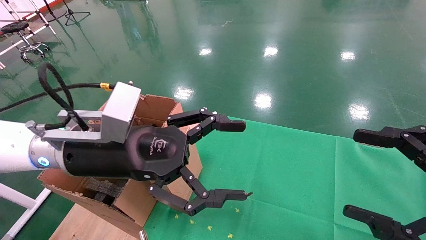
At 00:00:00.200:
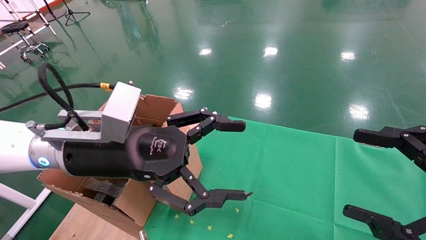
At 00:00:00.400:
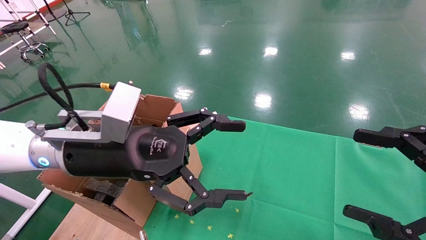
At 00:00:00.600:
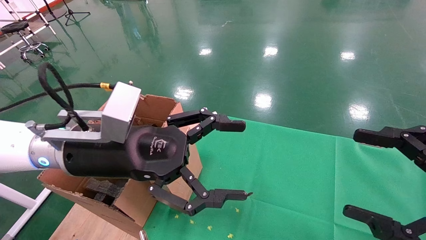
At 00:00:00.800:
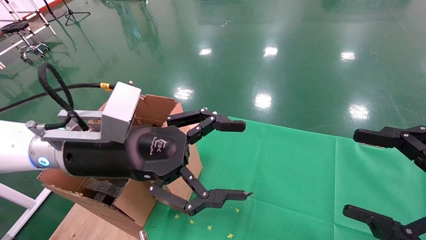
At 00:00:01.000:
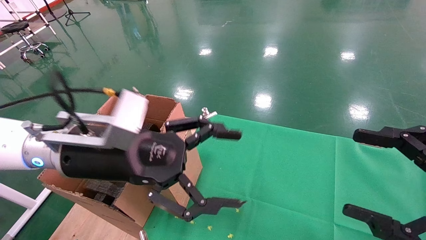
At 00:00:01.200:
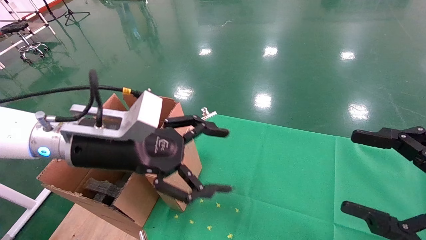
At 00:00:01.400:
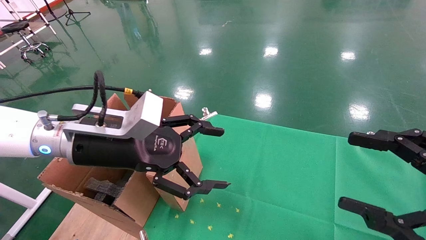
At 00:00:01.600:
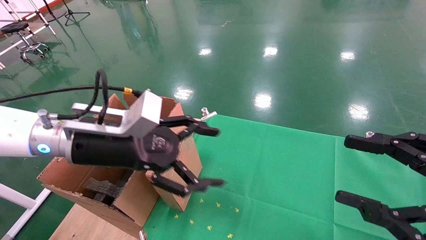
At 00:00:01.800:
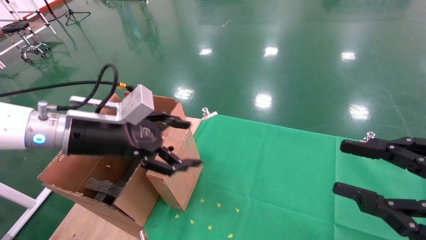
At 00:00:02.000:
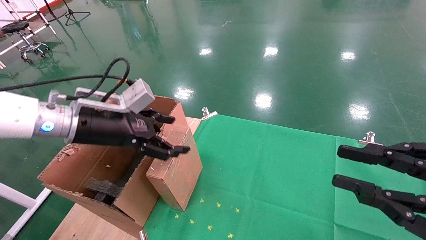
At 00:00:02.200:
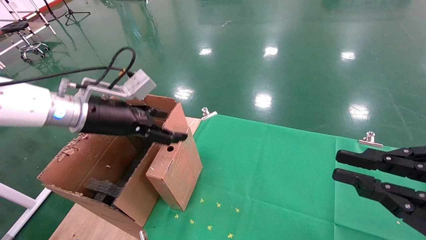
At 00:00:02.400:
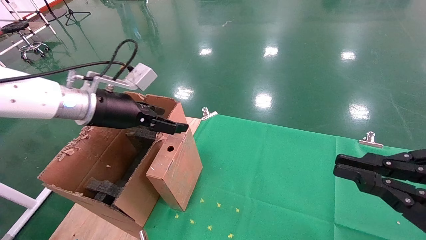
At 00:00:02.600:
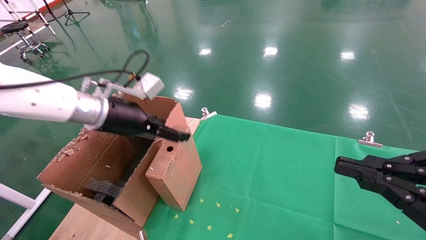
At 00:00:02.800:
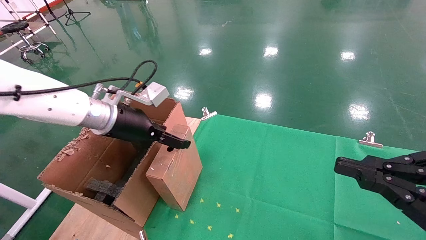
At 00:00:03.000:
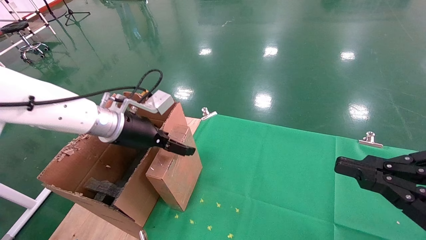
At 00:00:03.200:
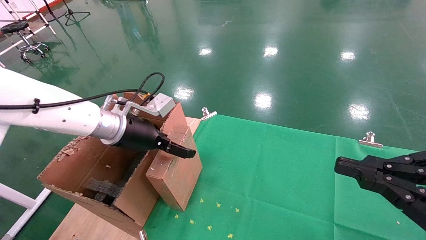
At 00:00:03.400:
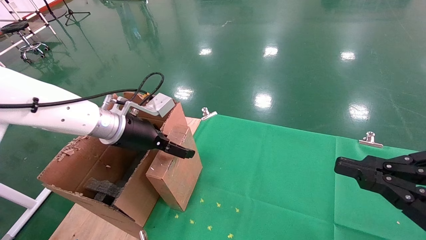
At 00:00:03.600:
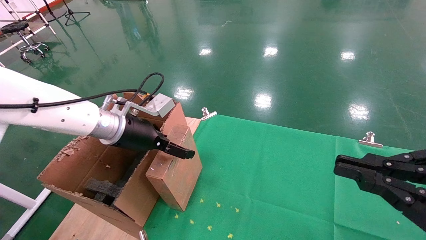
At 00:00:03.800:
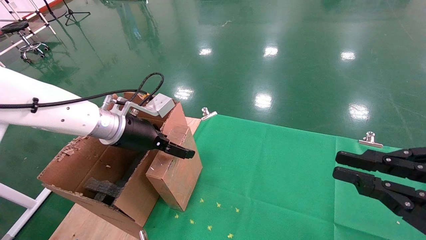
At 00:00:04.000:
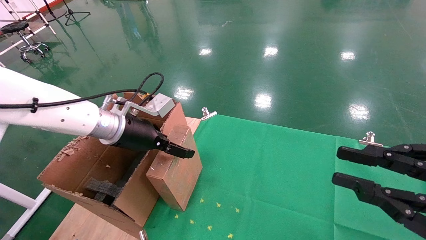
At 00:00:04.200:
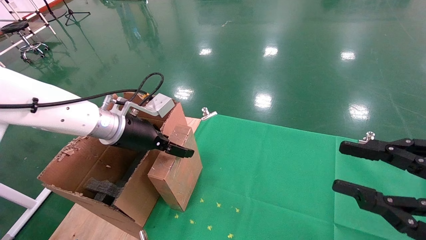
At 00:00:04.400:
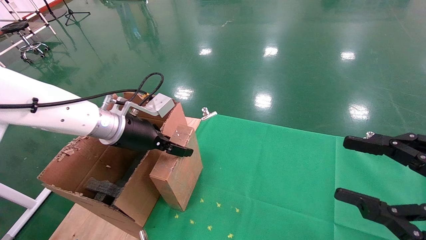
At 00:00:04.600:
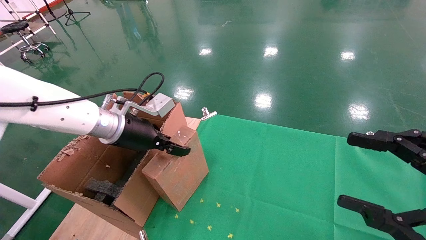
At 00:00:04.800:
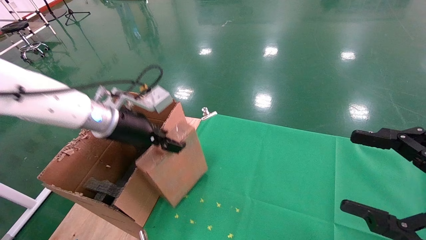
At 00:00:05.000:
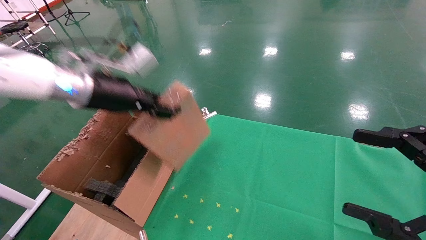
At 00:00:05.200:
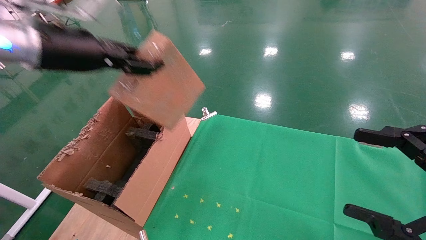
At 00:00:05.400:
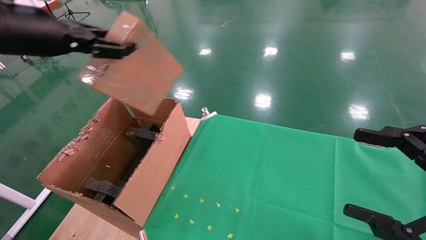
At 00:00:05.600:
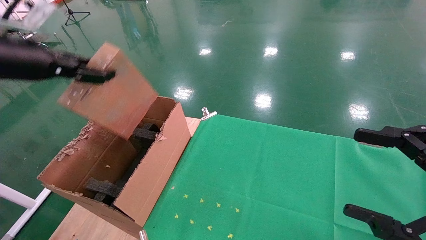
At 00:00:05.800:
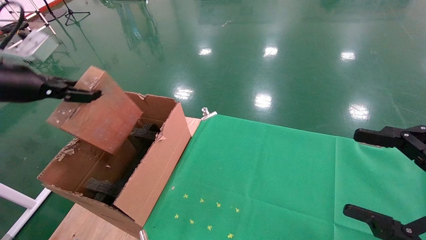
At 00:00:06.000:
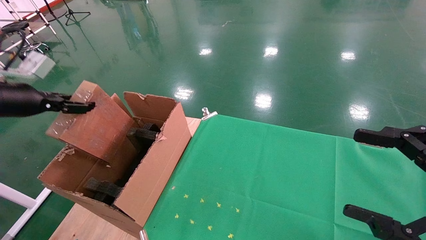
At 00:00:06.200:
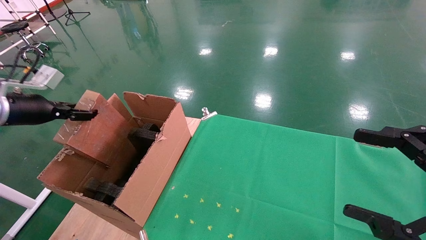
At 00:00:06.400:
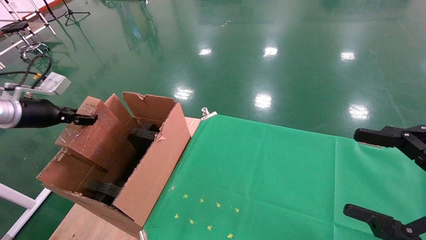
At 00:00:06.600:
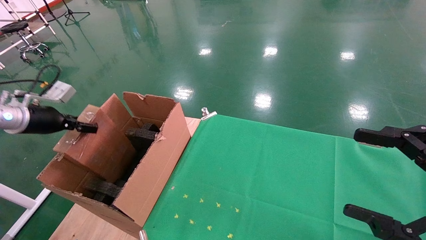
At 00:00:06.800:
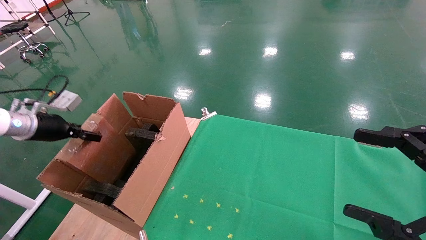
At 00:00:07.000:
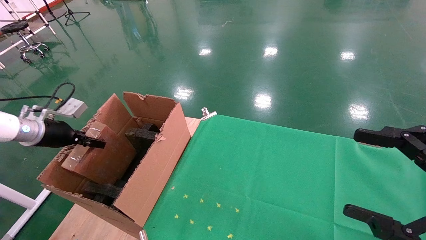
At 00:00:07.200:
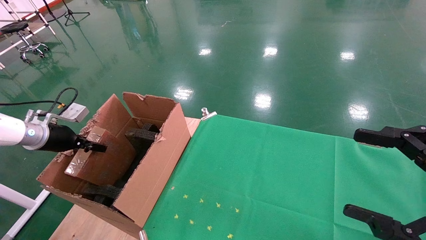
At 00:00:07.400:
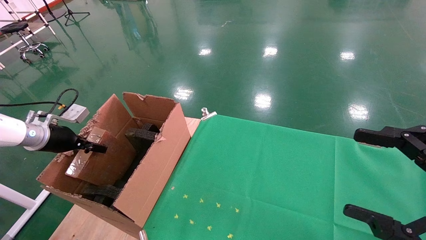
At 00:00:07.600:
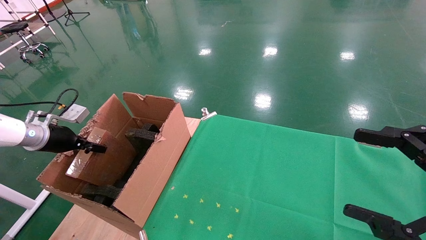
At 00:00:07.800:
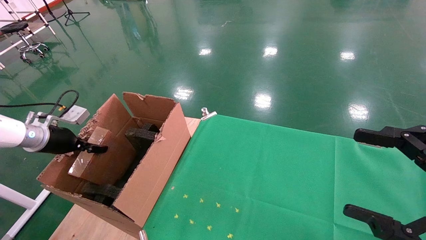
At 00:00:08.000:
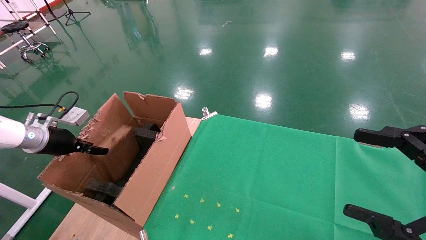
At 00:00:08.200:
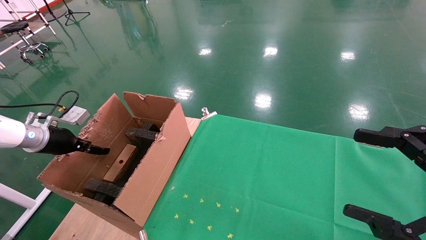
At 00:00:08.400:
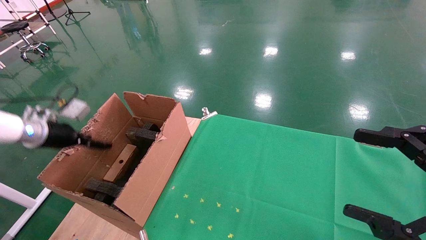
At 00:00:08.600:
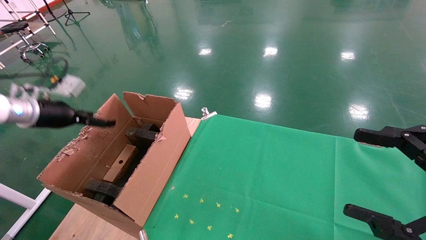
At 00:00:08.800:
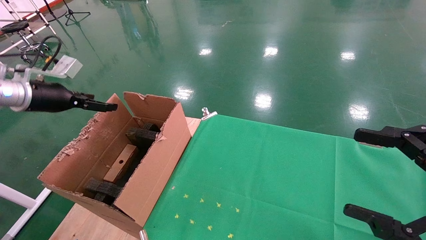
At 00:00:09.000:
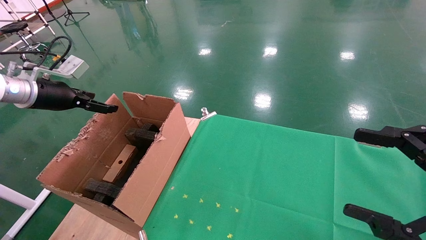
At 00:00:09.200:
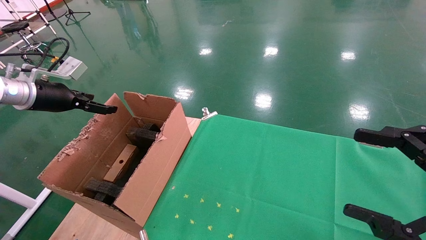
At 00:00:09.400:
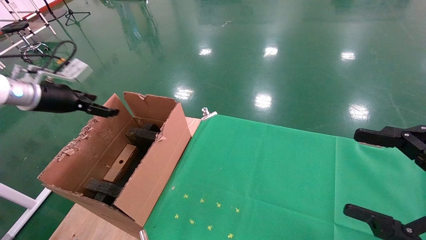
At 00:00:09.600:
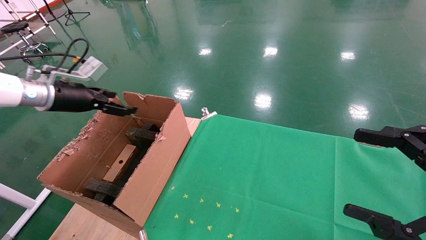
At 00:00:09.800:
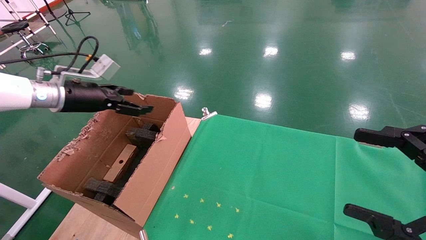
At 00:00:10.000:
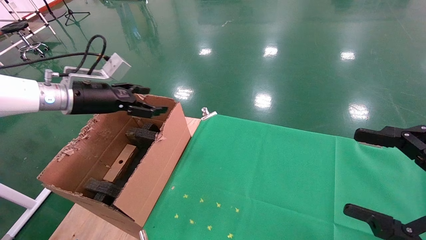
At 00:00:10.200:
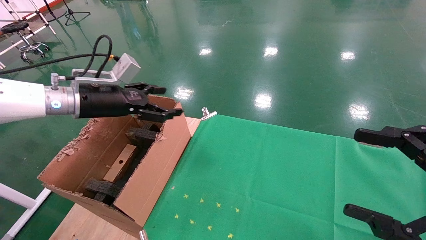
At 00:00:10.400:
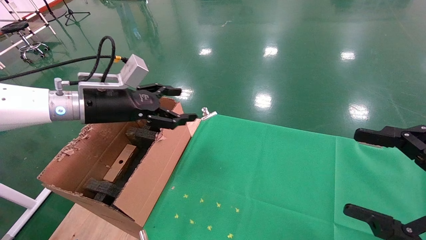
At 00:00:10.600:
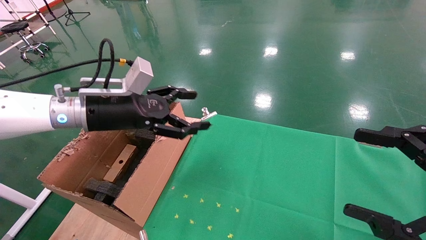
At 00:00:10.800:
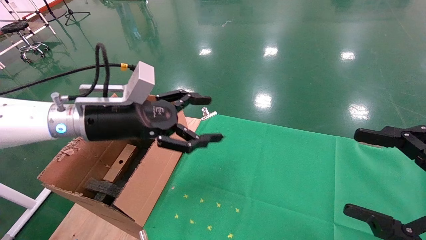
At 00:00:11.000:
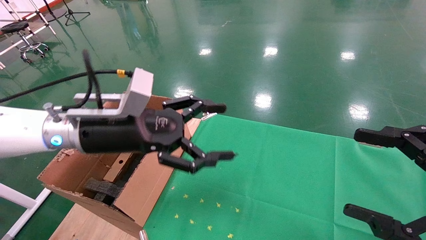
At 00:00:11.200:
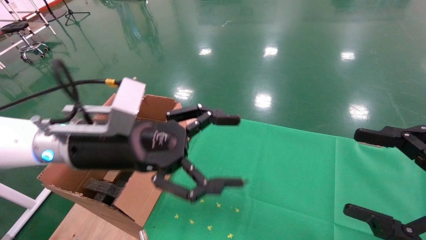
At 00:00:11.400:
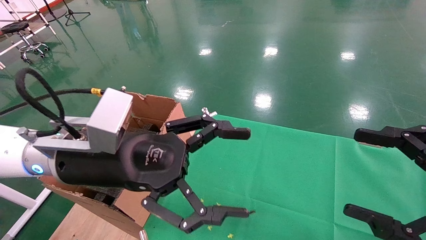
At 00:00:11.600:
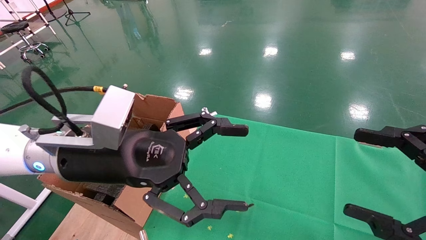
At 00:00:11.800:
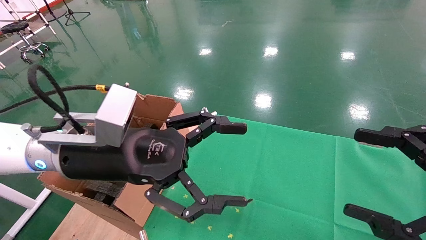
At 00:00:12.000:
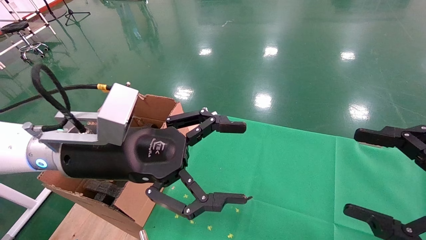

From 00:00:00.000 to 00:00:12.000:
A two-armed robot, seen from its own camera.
Task of the whole recording: using a robotic arm to pick up a cardboard box and palace it the carton.
Step, from 00:00:01.200 to 00:00:04.400: Pick up the mouse and the power cord paper box.
Step, from 00:00:04.600 to 00:00:07.800: Place the mouse and the power cord paper box into the container.
From 00:00:01.600 to 00:00:03.000: The right gripper closes its fingers. The left gripper shifts about 10 cm forward.
From 00:00:03.000 to 00:00:04.400: The left gripper closes; the right gripper opens up.
From 00:00:04.400 to 00:00:06.000: The left gripper goes some 20 cm to the left, and closes up, while the right gripper opens.
From 00:00:06.000 to 00:00:07.600: The left gripper goes approximately 15 cm downward and forward.
From 00:00:07.600 to 00:00:09.000: The left gripper heads upward, covering roughly 10 cm, and opens its fingers.
From 00:00:09.000 to 00:00:10.400: The left gripper travels to the right by some 20 cm.
From 00:00:10.400 to 00:00:12.000: The left gripper goes about 15 cm backward and to the right.

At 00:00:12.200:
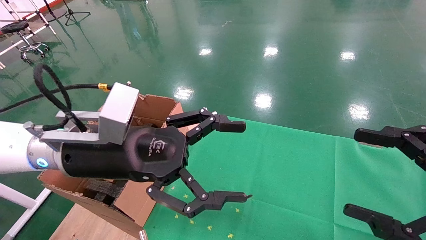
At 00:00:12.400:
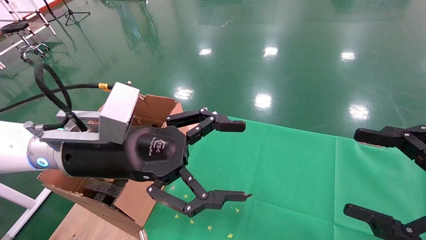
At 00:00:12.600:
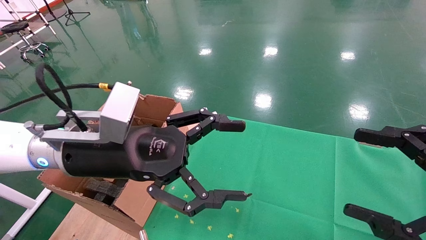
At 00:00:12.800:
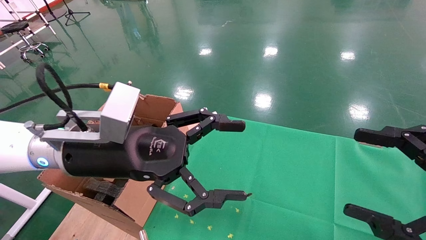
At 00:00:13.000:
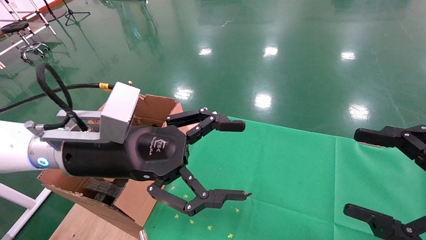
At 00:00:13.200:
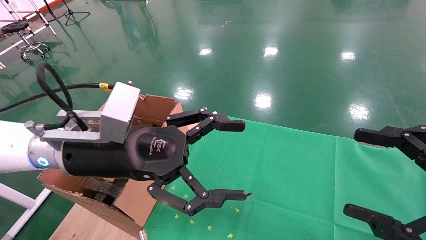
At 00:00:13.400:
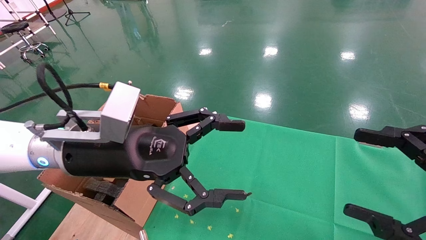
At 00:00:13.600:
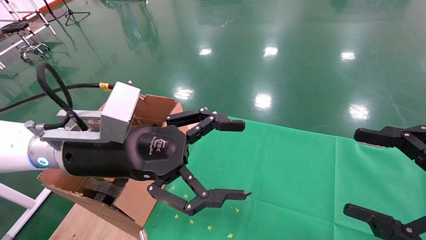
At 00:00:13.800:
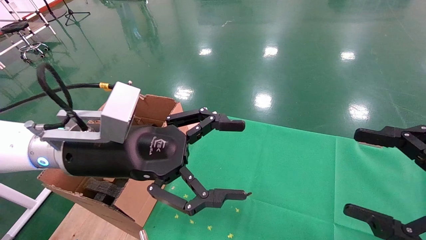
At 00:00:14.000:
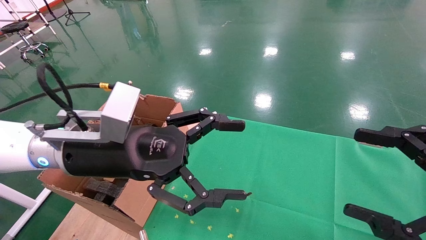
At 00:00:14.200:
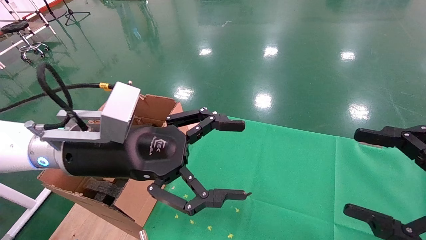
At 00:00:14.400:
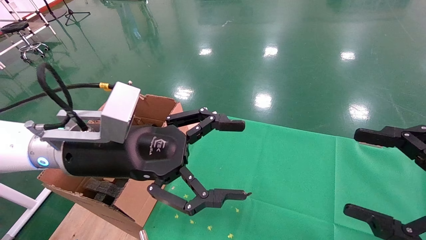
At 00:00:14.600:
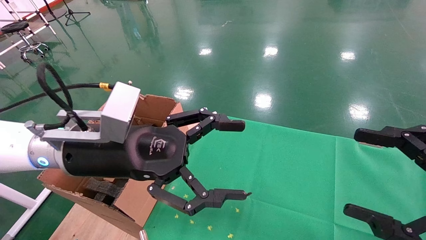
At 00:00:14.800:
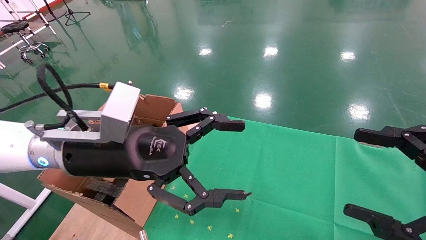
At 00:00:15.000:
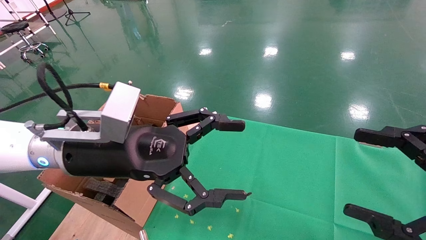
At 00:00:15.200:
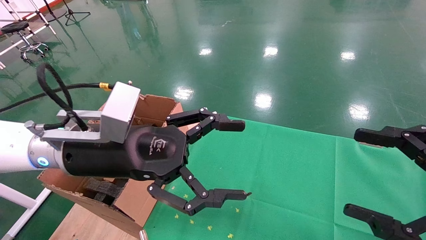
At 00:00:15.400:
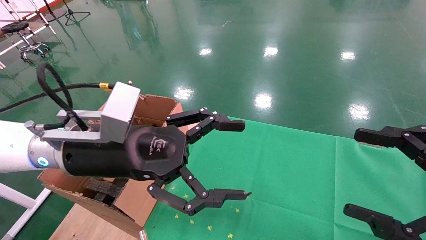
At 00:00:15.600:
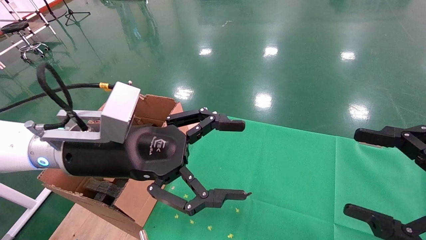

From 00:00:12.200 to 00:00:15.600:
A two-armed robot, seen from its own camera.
Task of the whole recording: using a robotic arm to pick up a cardboard box and palace it the carton.
From 00:00:12.200 to 00:00:15.600: Neither gripper changes place.
